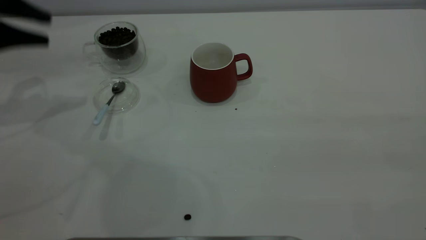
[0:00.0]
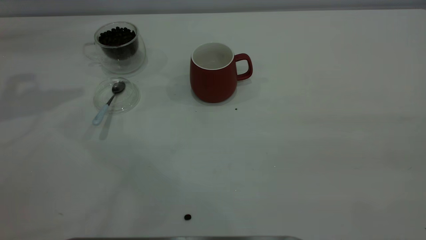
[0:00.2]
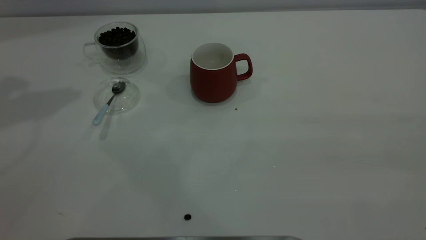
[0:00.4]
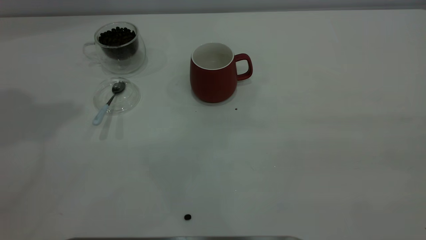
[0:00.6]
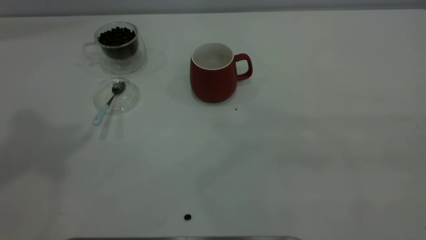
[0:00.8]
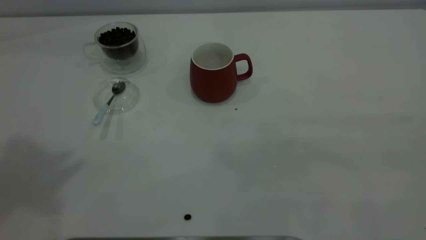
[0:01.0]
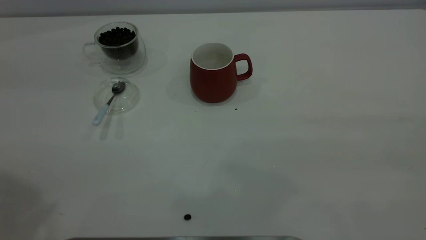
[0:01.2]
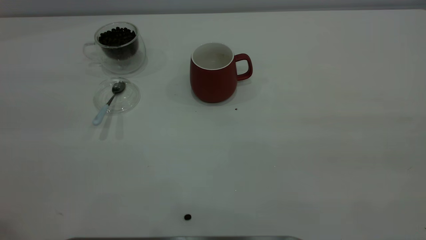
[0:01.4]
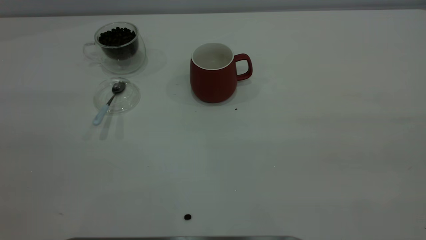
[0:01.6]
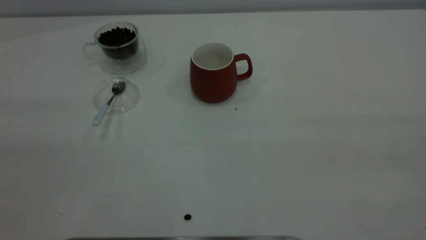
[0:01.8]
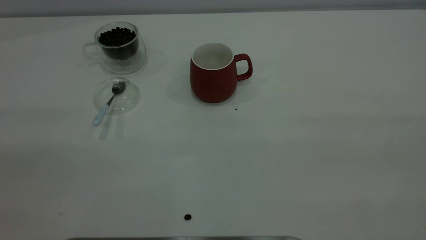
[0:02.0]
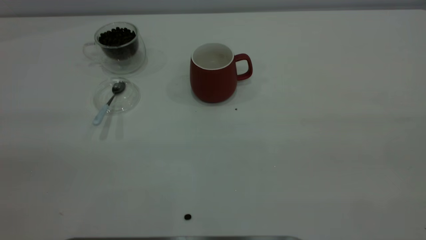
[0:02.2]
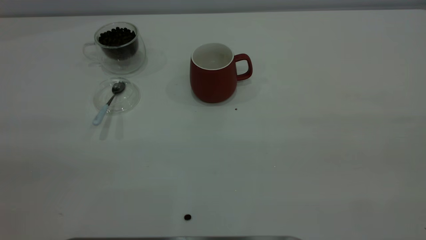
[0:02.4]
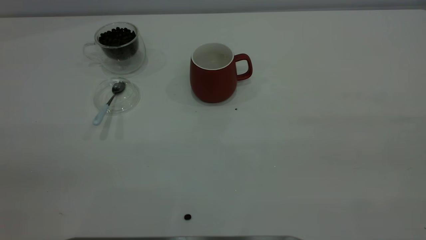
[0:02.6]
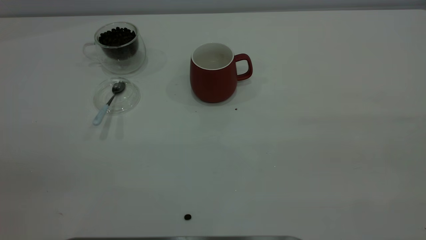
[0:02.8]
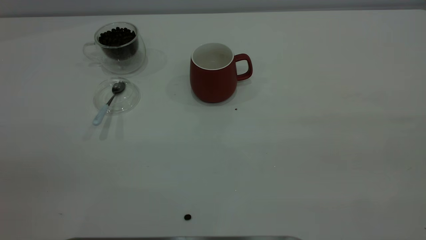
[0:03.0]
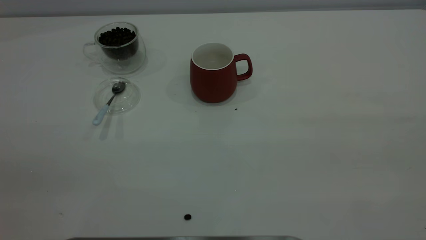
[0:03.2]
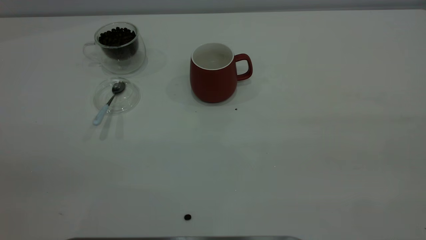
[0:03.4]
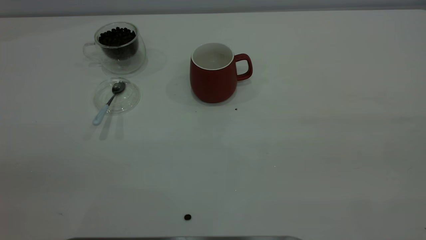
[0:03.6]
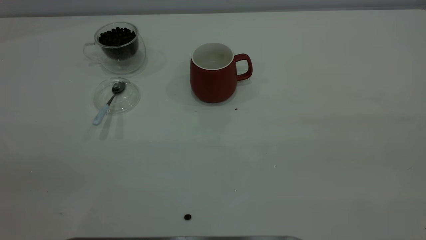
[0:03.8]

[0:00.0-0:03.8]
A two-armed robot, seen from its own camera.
Task of the whole recording: the right gripper place the red cup in the center of the table, the left gripper take the blue spoon from the cup lid and scoop out the coffee beans from the coffee cup and put them into the red cup, the left gripper put the spoon back into the cup lid.
0:00.0 to 0:01.2: The left gripper shifts approximately 30 cm backward and upward.
0:02.6 to 0:03.8: Both grippers stay put.
